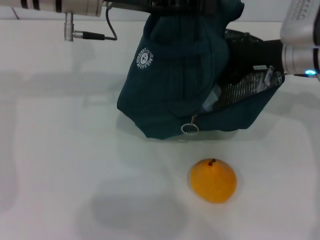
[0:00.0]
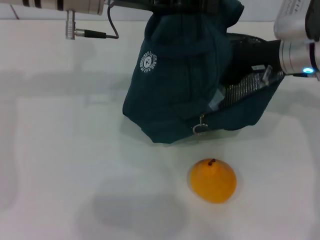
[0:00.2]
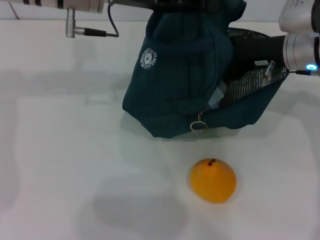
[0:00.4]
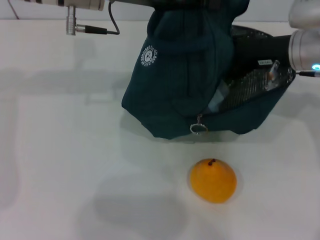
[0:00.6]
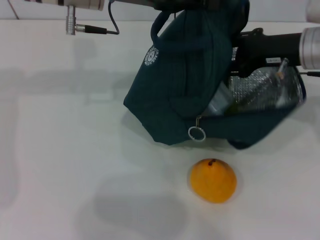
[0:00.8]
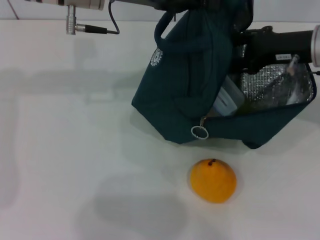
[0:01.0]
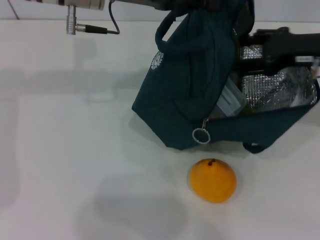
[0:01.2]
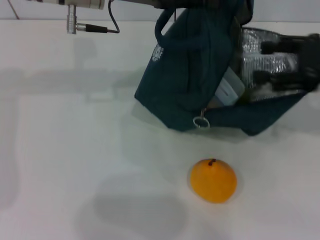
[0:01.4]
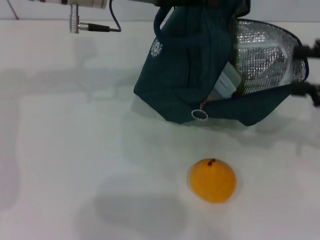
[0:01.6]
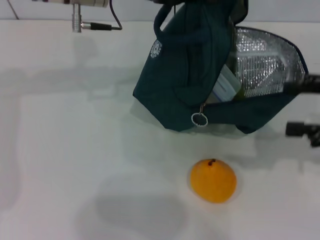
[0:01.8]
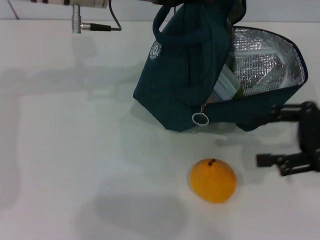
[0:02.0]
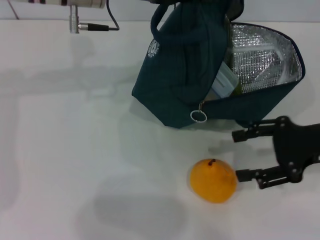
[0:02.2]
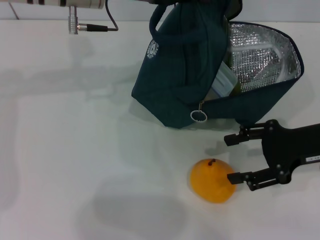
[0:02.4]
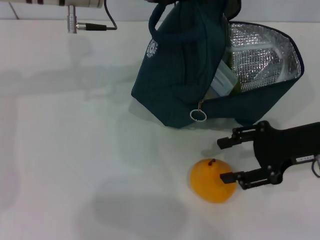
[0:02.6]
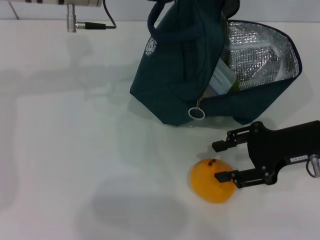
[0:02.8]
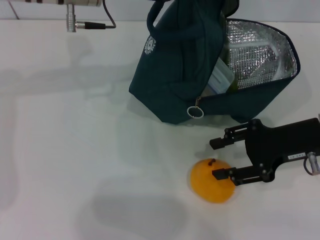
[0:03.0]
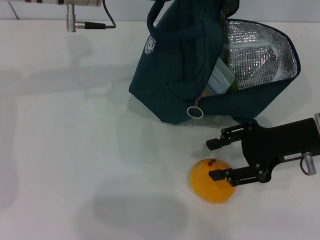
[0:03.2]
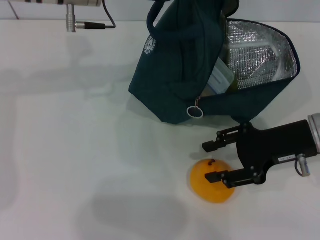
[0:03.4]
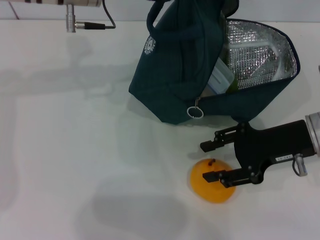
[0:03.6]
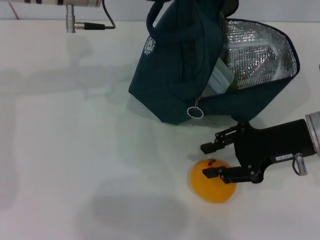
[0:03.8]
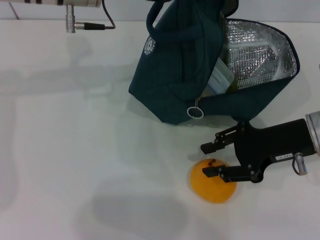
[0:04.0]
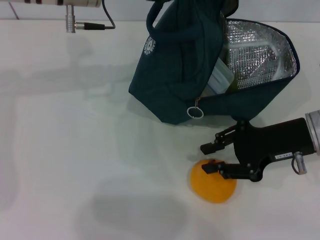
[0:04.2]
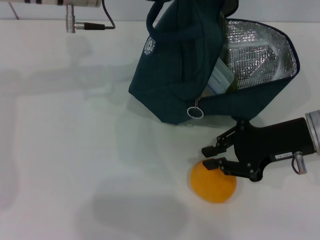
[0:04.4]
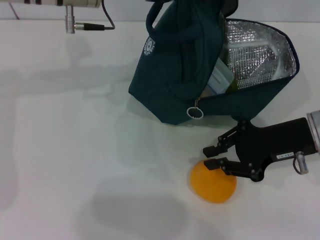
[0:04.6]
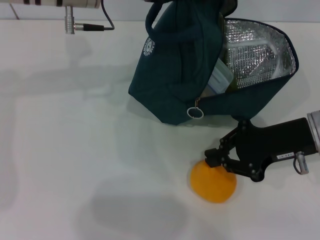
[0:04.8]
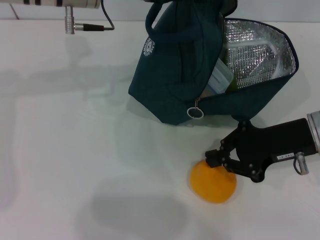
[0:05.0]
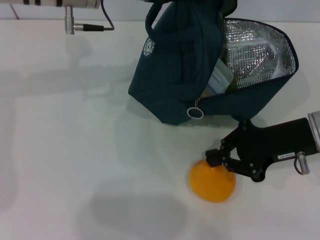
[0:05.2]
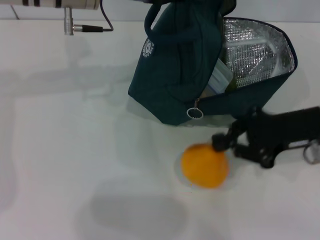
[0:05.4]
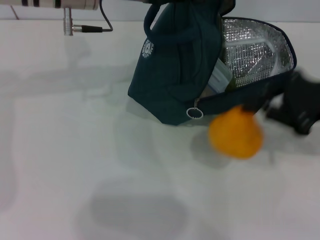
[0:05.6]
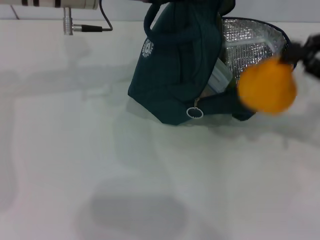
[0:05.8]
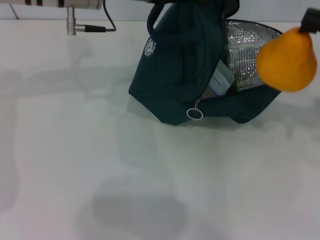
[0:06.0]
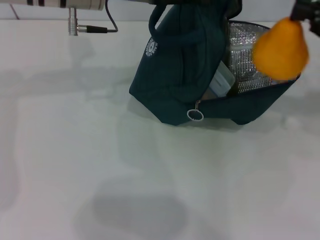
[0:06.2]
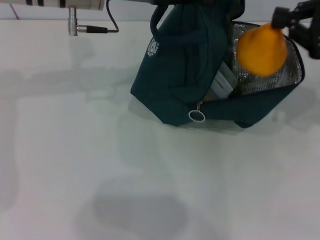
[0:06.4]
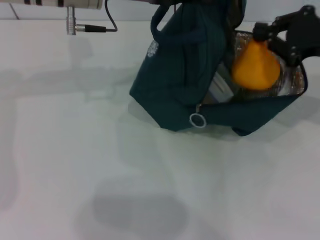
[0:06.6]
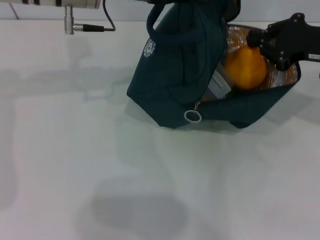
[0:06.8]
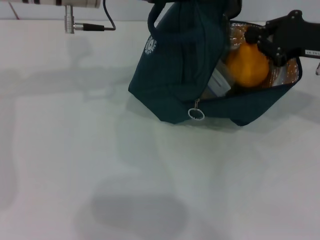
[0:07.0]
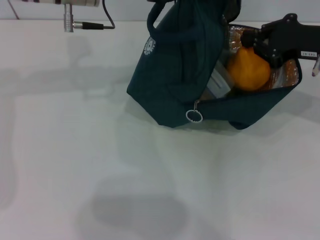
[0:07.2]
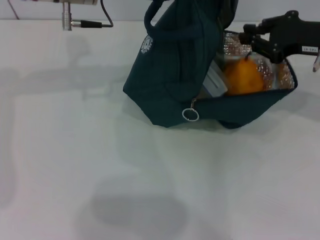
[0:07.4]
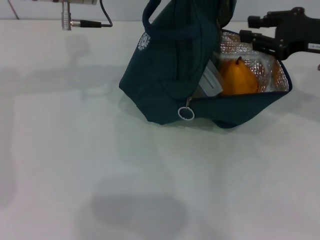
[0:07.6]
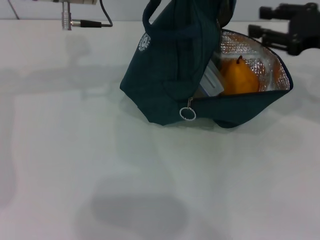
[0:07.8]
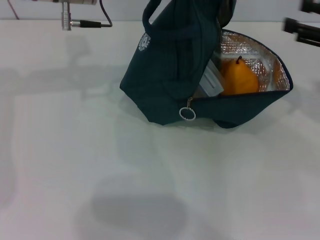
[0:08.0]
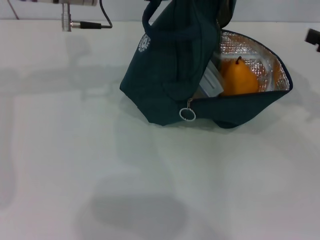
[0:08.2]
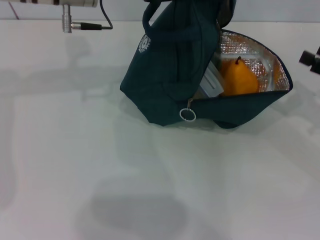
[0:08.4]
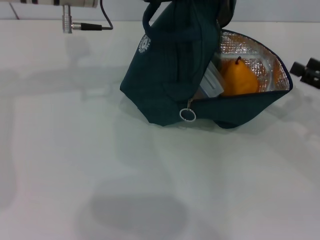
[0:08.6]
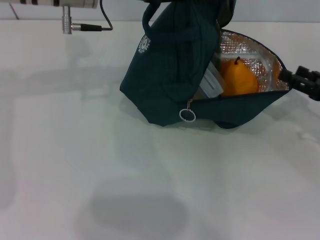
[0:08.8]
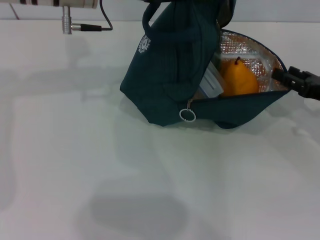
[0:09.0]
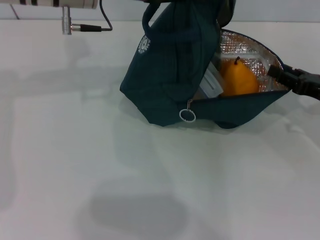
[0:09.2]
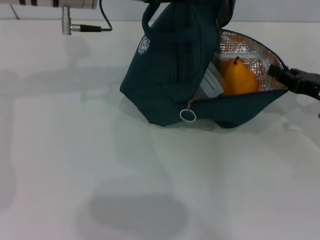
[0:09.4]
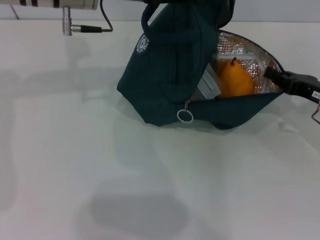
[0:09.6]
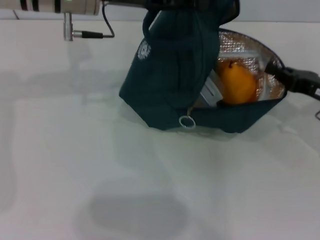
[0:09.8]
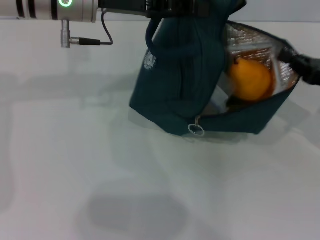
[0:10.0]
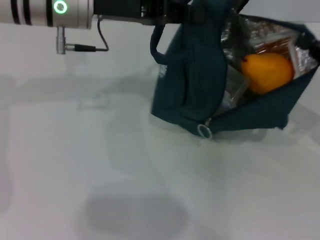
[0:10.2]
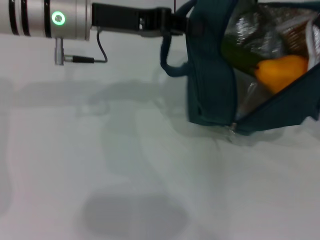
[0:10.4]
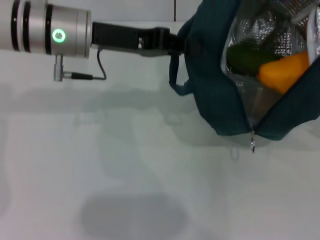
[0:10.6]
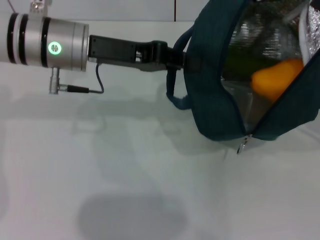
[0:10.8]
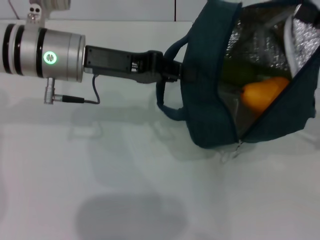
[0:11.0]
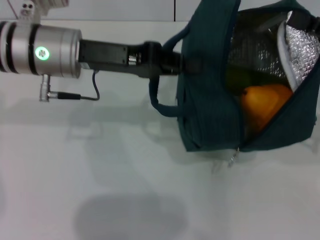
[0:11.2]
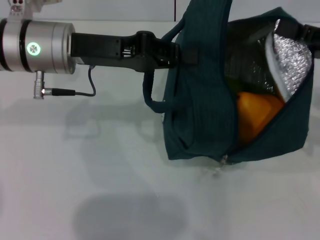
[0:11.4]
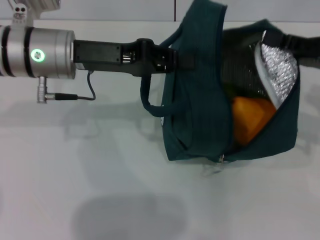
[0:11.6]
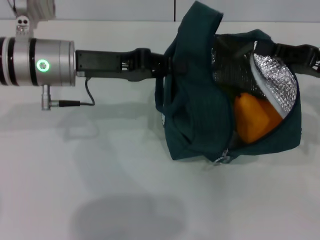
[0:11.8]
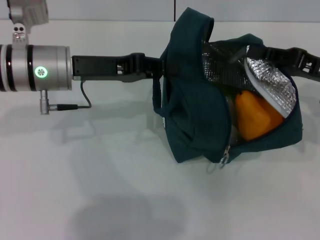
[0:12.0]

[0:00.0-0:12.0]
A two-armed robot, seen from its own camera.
Step, 0:01.8 to 0:04.6: Grab the pear with your right hand.
0:00.0 to 0:01.6: The right gripper shifts some 15 cm to the right and backward.
0:01.6 to 0:03.0: The right gripper shifts about 10 cm to the left and downward.
0:03.0 to 0:04.4: There are only small adjustments of the grippers.
0:04.4 to 0:06.0: The right gripper is displaced to the right and upward by roughly 15 cm.
0:06.0 to 0:07.6: The right gripper is displaced forward and to the left by about 10 cm.
0:07.6 to 0:09.0: The right gripper travels downward by approximately 10 cm, and opens.
0:09.0 to 0:10.4: The right gripper moves upward, roughly 10 cm, and closes its fingers.
0:10.4 to 0:12.0: The right gripper travels to the left by approximately 5 cm; the left gripper goes about 5 cm downward.

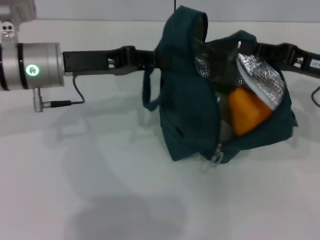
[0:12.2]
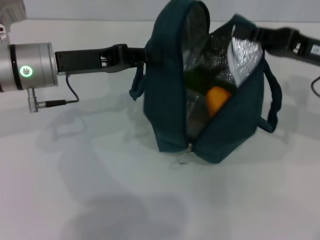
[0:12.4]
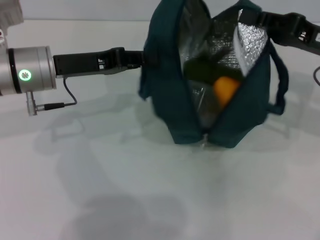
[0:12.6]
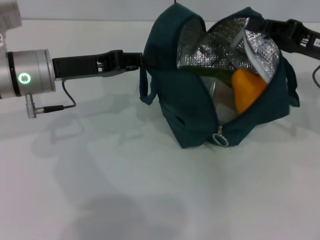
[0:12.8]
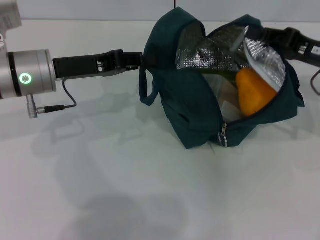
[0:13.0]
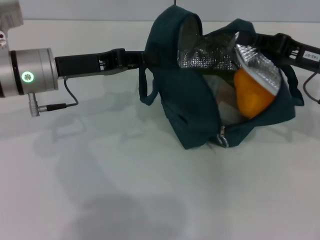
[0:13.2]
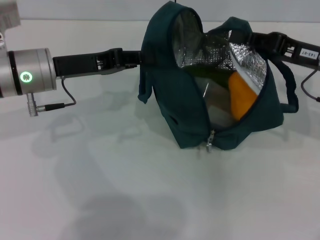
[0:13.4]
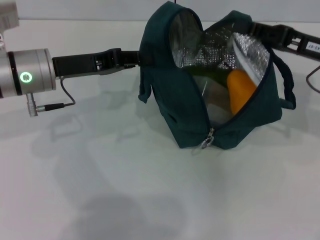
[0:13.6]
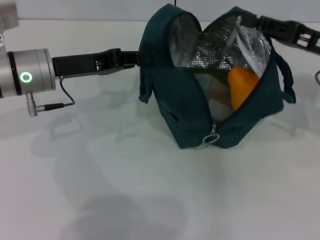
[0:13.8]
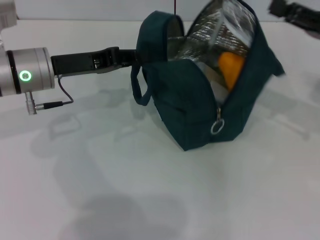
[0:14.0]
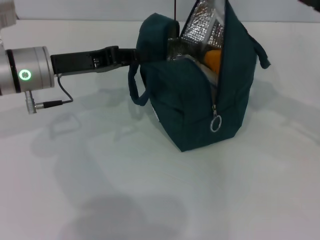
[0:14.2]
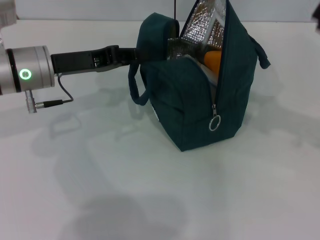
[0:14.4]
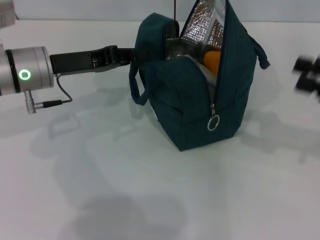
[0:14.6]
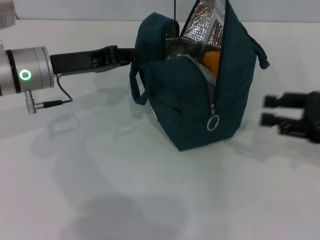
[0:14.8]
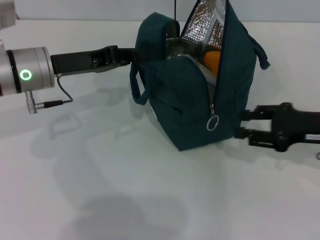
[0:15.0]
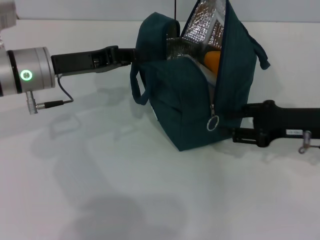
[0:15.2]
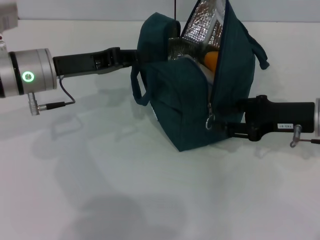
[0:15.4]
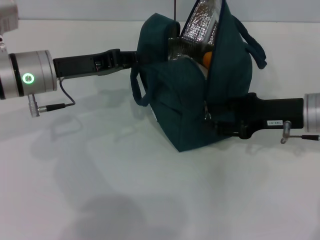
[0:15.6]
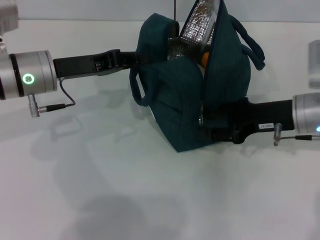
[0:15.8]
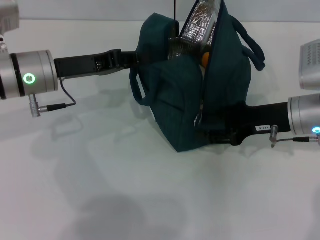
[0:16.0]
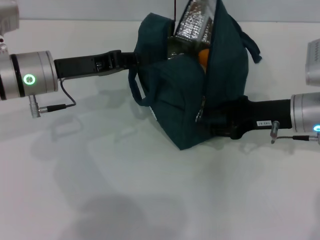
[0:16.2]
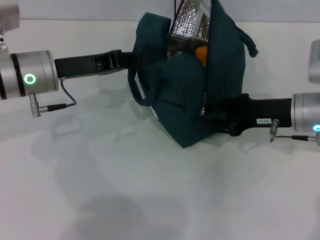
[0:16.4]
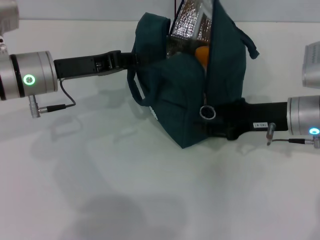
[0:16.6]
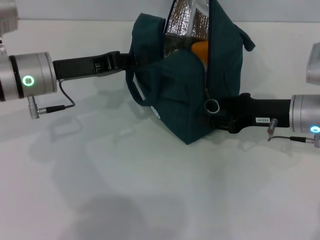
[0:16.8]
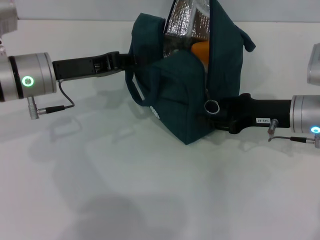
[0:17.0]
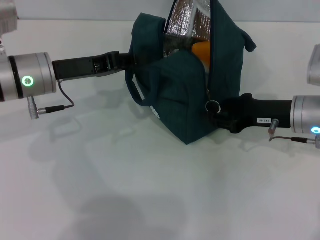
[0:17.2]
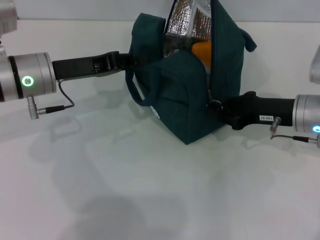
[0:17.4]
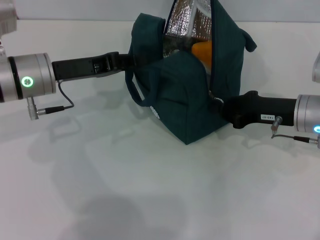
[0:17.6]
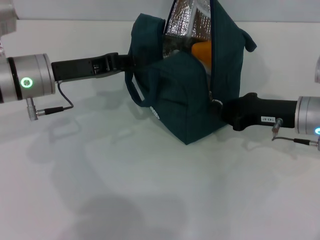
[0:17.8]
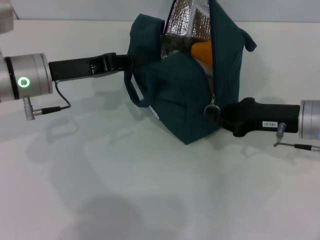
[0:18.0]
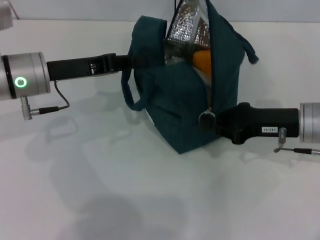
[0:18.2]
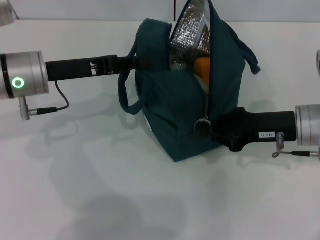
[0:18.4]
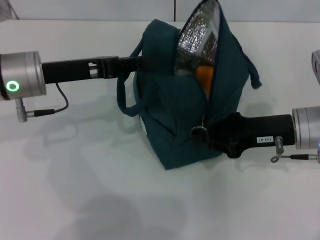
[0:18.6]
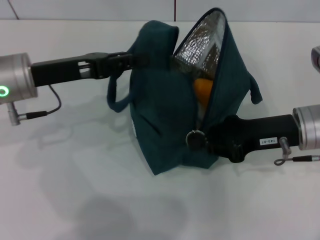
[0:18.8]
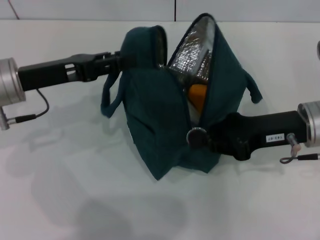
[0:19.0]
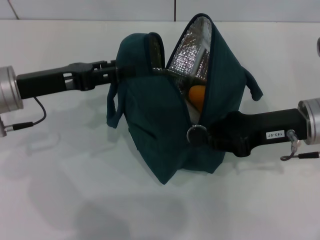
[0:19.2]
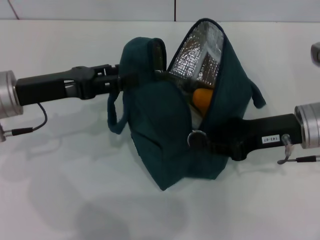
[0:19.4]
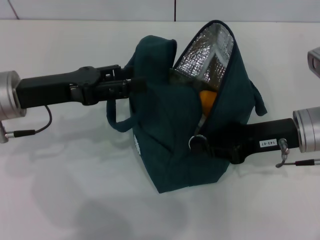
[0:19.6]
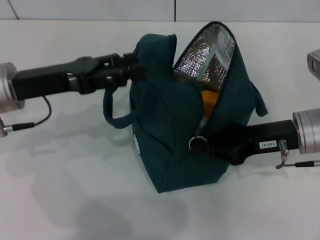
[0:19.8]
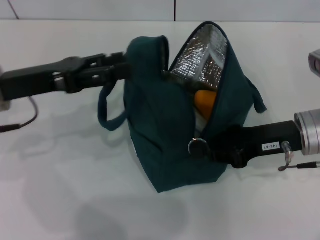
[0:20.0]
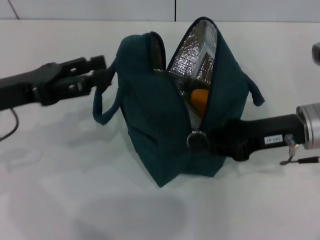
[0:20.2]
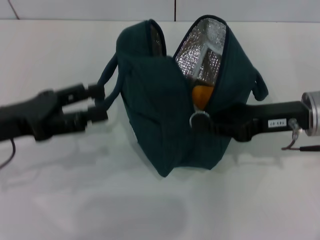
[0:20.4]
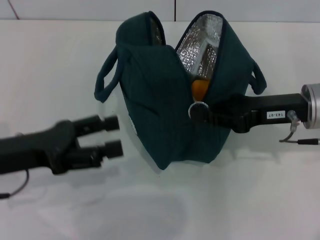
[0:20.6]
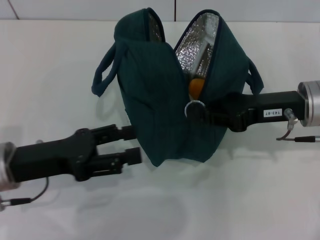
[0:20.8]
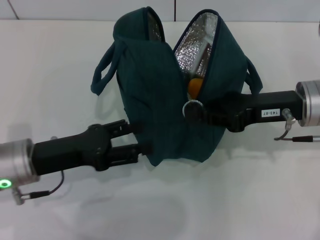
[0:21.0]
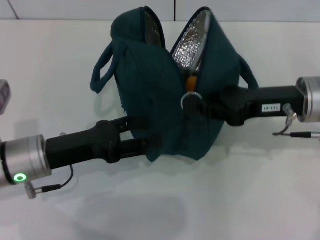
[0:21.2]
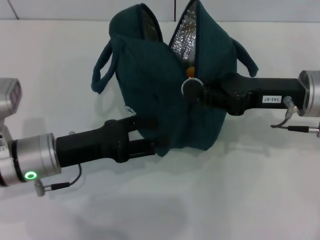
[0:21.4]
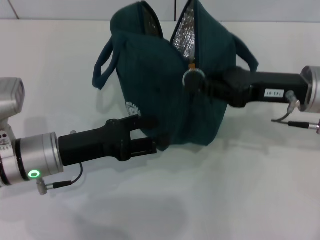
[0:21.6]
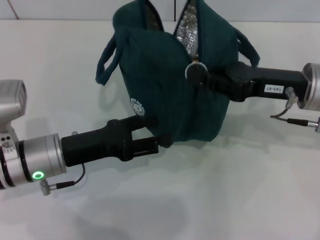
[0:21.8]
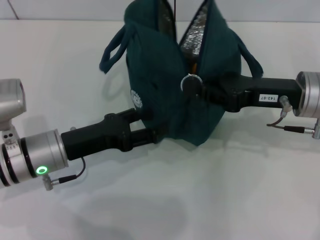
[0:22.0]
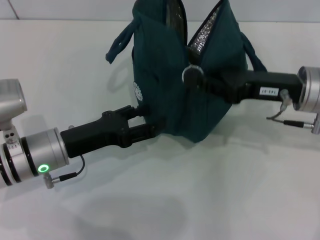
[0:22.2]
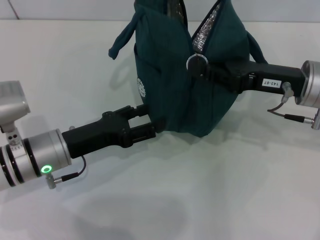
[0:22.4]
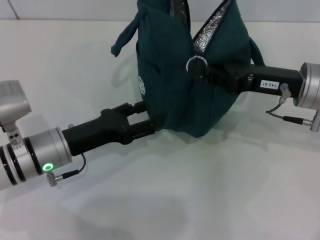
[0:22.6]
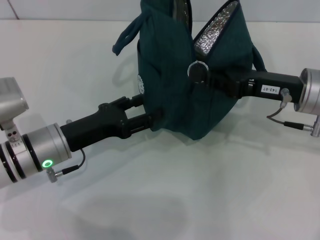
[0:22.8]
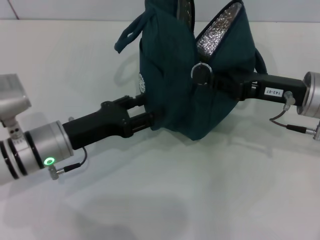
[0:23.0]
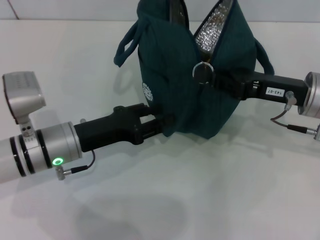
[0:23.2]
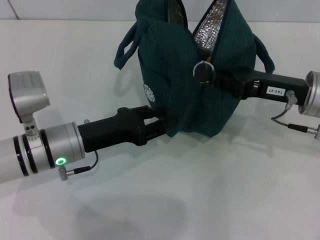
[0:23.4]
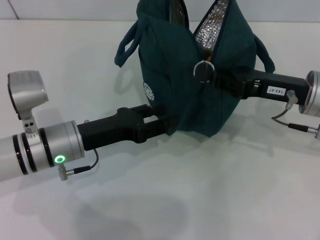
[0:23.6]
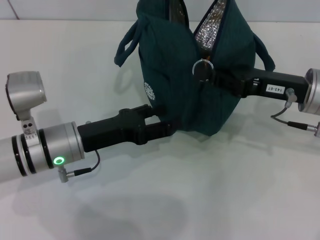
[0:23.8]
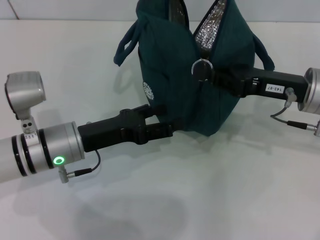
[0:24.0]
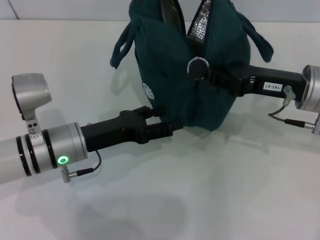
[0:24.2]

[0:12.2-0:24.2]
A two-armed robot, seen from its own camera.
Step, 0:14.2 to 0:20.2: Hold the lunch bag with your left hand.
0:13.8 to 0:15.2: The right gripper heads downward, covering about 5 cm, goes to the right and returns, some 5 cm each way, and opens its fingers.
0:15.2 to 0:16.6: The grippers stay close to where they were, moving slightly.
0:16.6 to 0:18.2: The right gripper closes up.
0:18.2 to 0:19.8: The left gripper opens.
0:19.8 to 0:21.2: The left gripper goes about 10 cm downward and backward.
0:22.6 to 0:24.2: The left gripper closes, then reopens.
